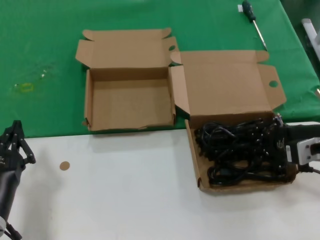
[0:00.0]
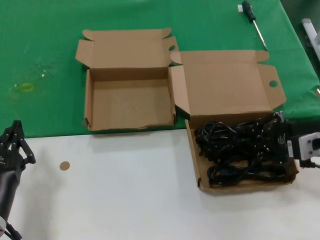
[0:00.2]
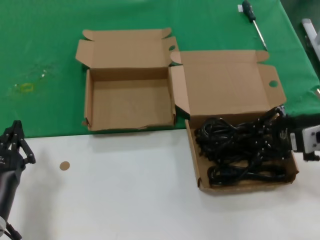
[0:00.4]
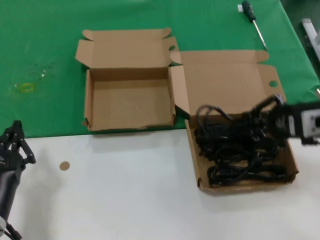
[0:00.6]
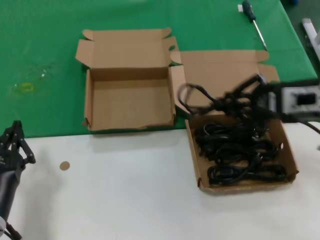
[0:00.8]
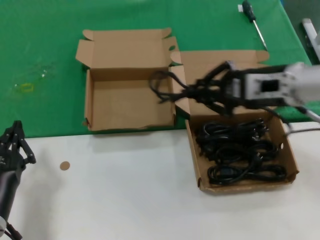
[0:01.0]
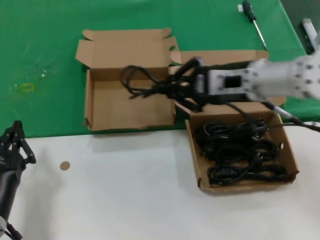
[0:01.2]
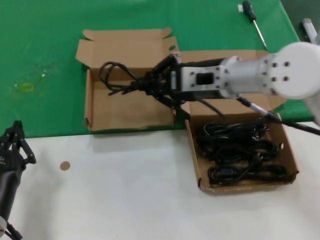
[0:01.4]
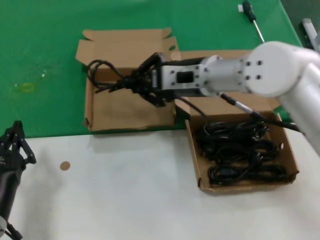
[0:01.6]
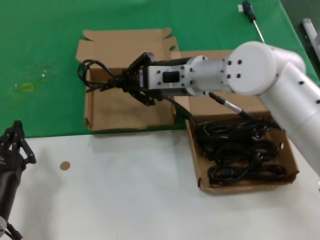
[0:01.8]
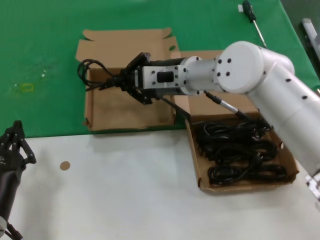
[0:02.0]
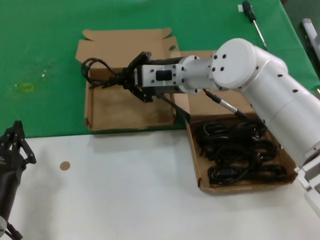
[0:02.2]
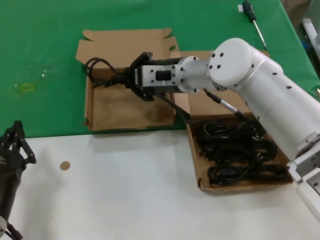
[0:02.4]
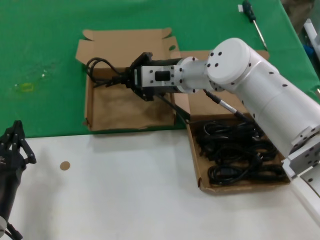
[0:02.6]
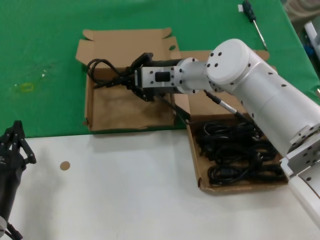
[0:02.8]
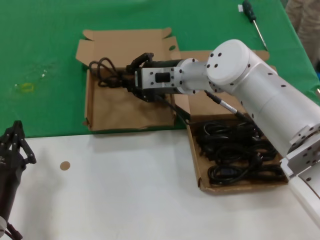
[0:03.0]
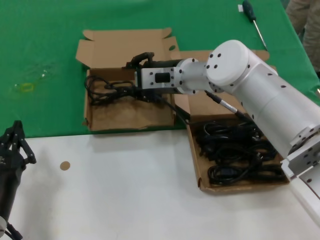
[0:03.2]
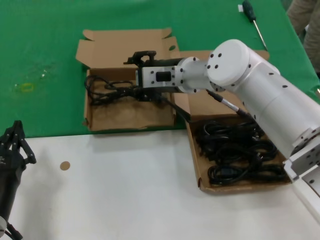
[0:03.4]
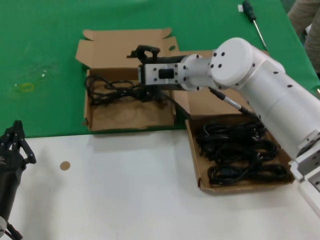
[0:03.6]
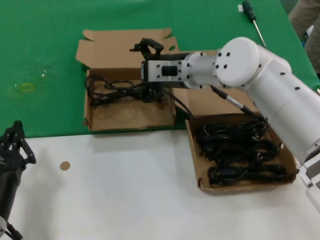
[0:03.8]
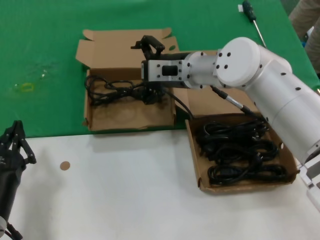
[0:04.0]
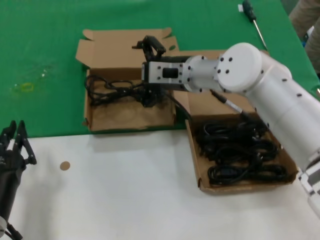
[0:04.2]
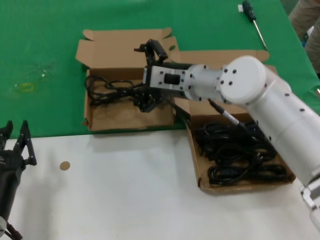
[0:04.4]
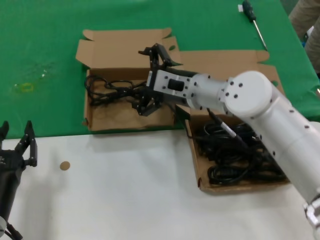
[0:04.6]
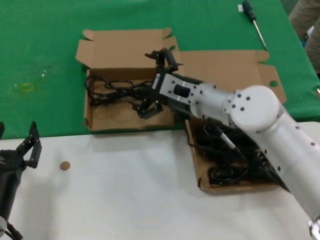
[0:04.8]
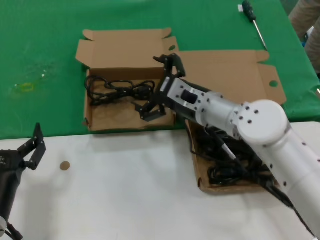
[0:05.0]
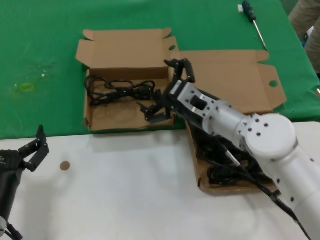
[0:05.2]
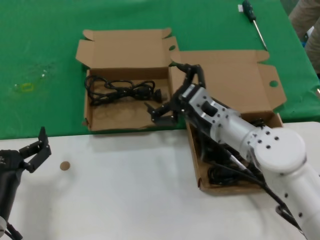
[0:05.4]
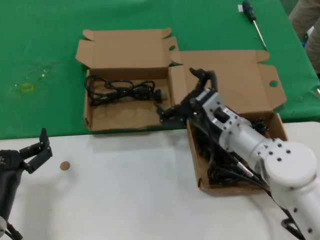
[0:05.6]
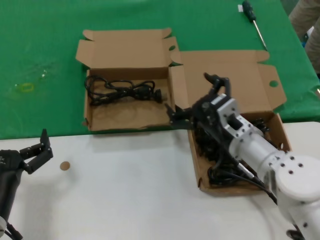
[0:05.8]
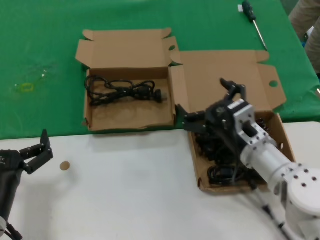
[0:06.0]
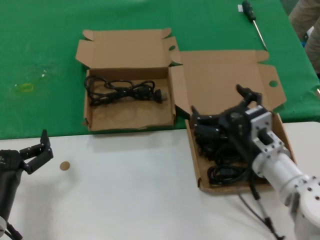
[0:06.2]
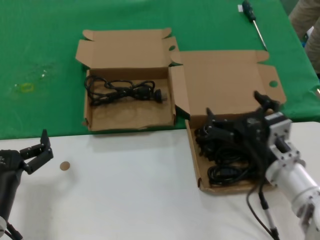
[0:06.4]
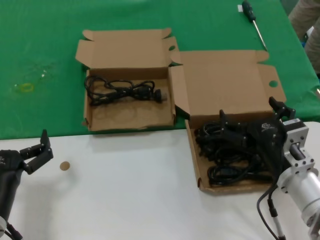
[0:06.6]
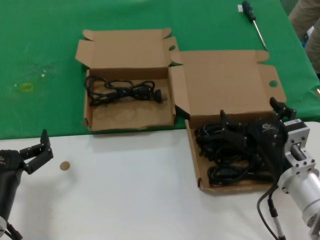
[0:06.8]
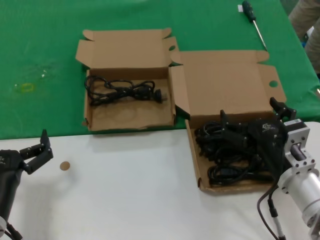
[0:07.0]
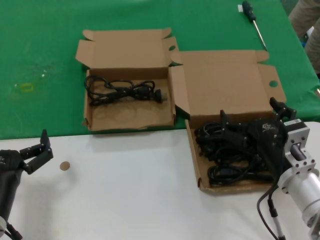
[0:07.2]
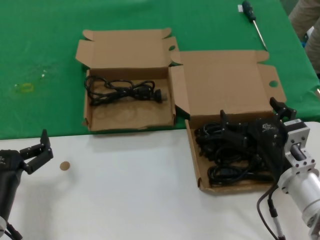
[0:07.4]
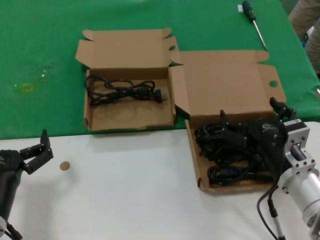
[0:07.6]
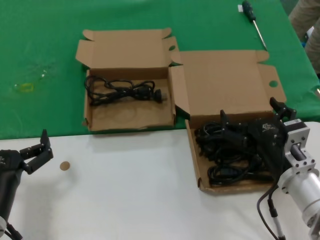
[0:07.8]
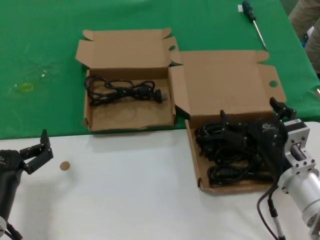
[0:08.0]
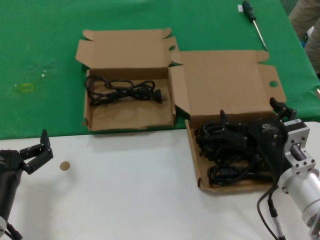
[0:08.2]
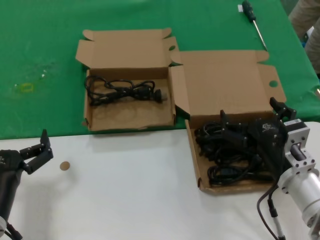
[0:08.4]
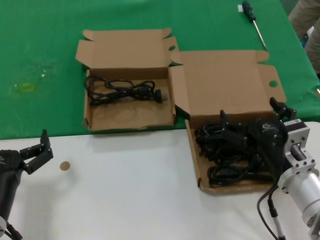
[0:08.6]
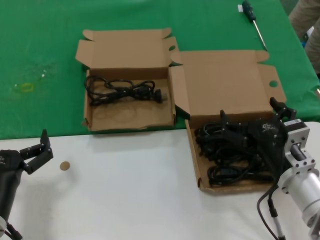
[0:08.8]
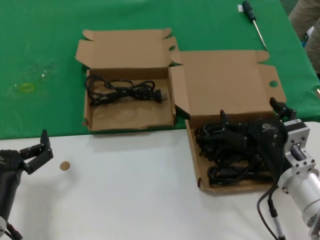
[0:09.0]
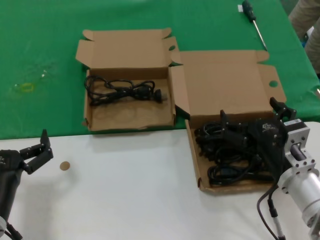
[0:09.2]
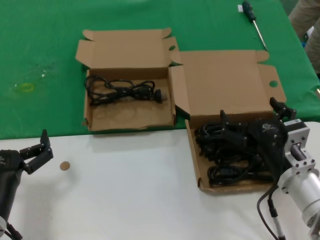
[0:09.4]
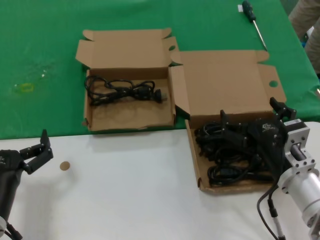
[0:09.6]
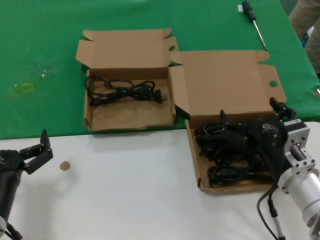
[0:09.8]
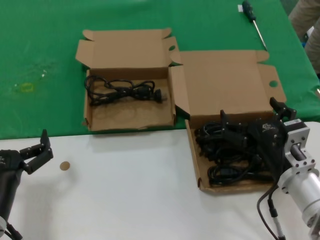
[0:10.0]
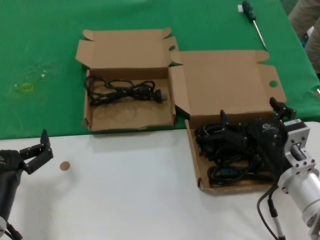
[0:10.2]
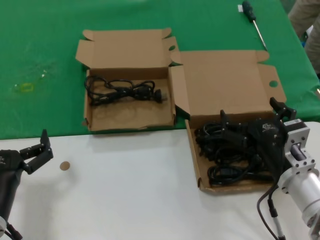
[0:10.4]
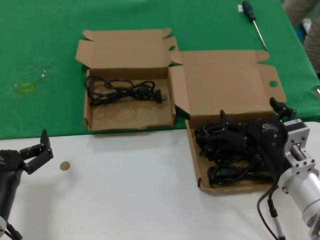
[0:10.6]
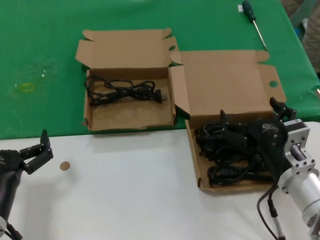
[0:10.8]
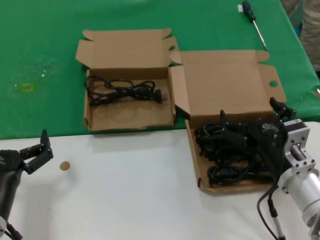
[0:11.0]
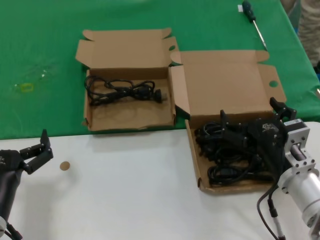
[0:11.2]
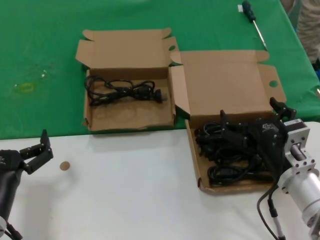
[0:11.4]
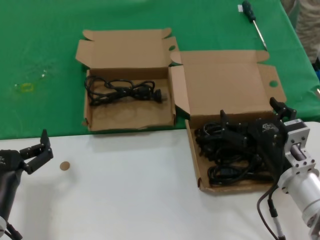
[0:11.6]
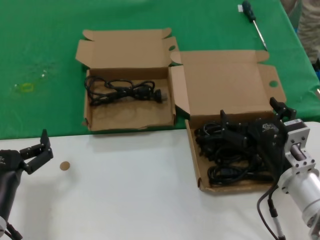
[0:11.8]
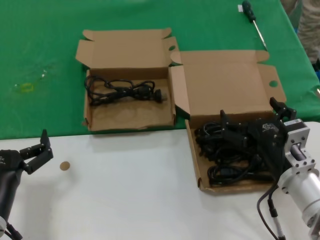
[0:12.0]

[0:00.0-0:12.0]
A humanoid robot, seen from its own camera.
Task of the whole recording: take the parts from the box containing them and put them into an empty box.
Step, 0:00.2 to 0:03.8: Place the data cable in the another box.
0:00.0 to 0:01.6: The right hand goes about 25 cm to the left, forward and upward.
0:01.6 to 0:03.0: The right hand shifts some 5 cm forward.
0:03.0 to 0:04.4: The hands make only small movements.
0:04.4 to 0:06.0: The right hand moves backward, downward and to the right, roughly 20 cm.
0:06.0 to 0:07.6: The right hand heads backward, covering some 5 cm.
0:07.6 to 0:12.0: The two hands keep their place.

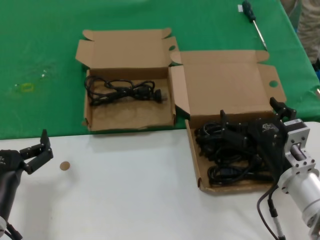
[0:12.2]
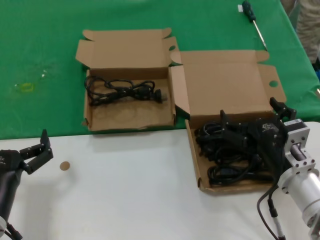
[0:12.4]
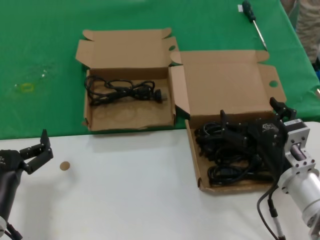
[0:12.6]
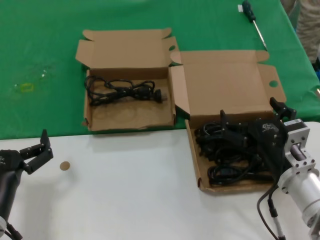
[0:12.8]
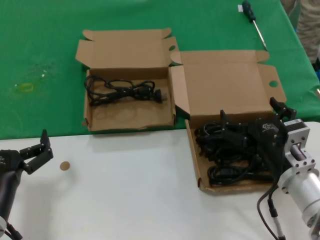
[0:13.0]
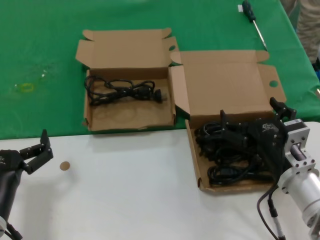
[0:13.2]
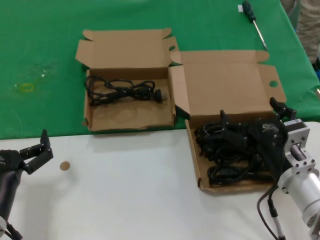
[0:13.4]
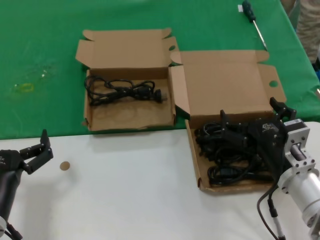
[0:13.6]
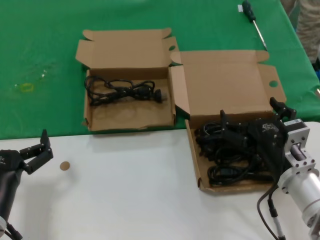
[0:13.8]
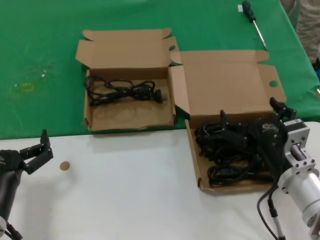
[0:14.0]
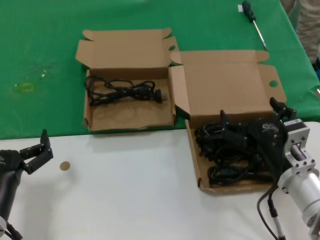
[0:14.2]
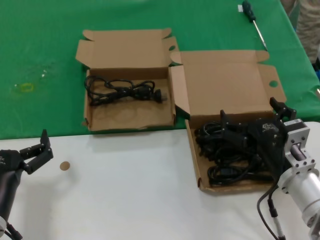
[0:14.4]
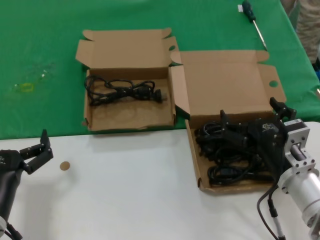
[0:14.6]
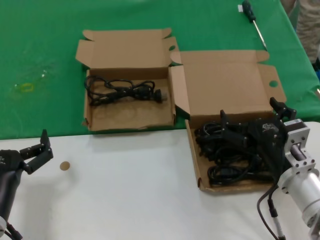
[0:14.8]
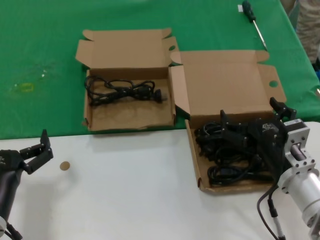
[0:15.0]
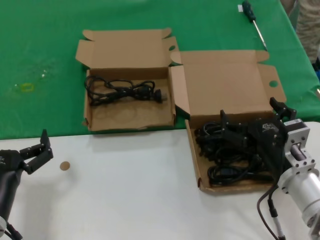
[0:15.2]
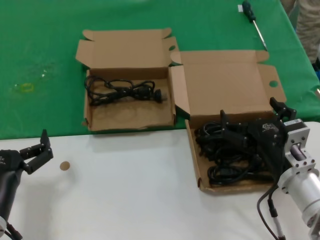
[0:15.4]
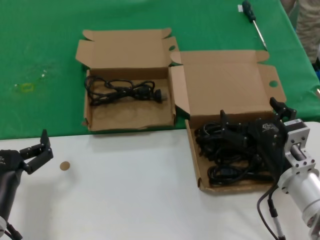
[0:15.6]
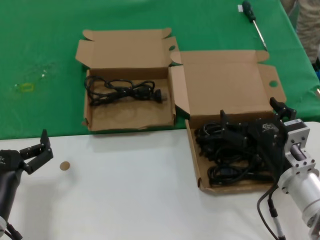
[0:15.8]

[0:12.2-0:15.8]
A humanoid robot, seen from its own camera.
Task of the whole recording: take the parts from the box containing them and put them into an empty box.
0:12.2 to 0:15.8: Both hands stay about where they are.

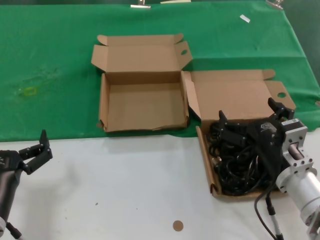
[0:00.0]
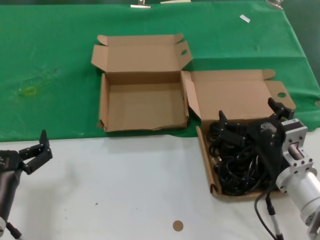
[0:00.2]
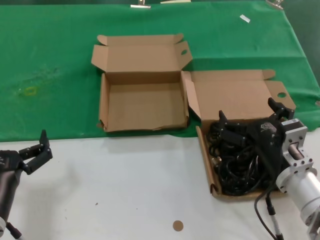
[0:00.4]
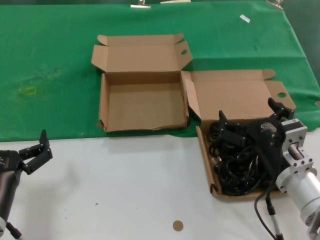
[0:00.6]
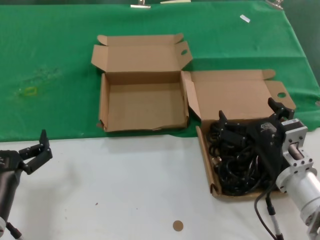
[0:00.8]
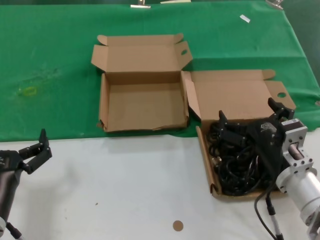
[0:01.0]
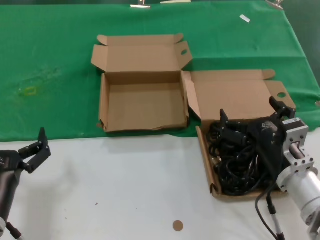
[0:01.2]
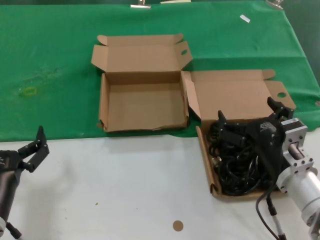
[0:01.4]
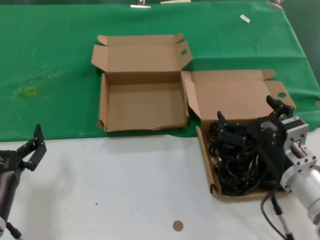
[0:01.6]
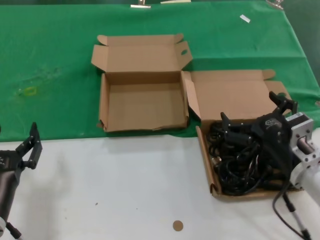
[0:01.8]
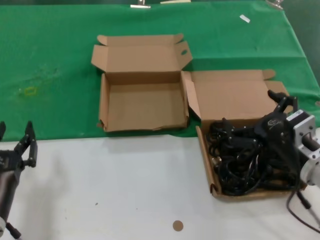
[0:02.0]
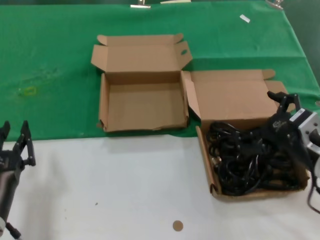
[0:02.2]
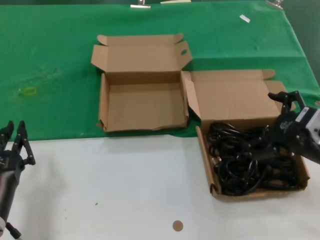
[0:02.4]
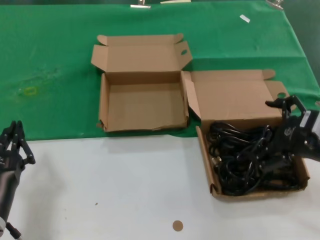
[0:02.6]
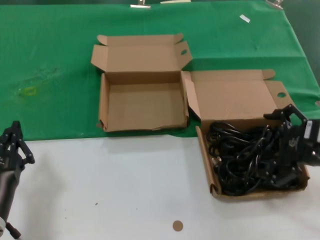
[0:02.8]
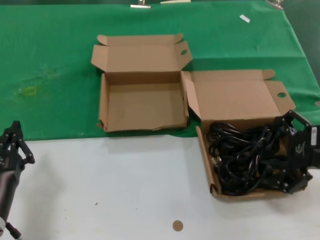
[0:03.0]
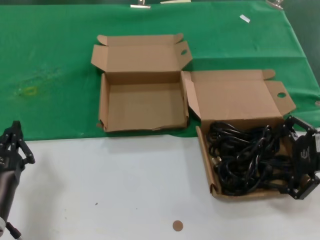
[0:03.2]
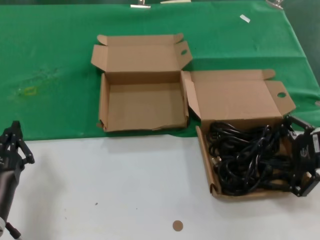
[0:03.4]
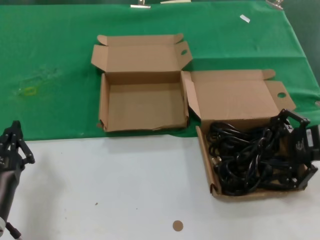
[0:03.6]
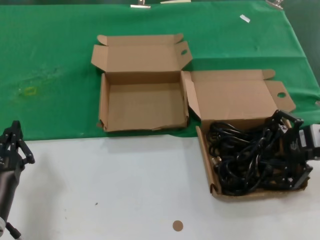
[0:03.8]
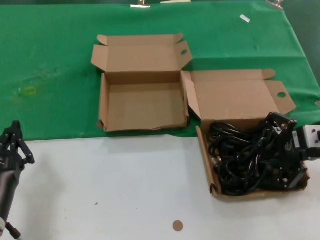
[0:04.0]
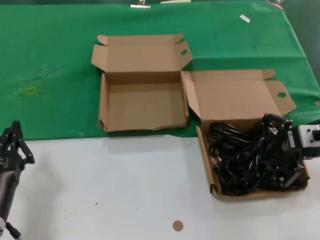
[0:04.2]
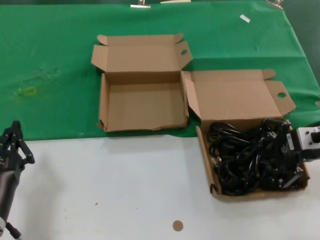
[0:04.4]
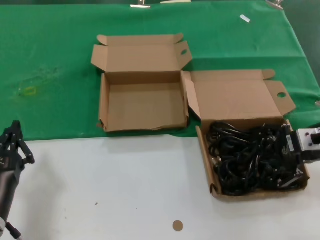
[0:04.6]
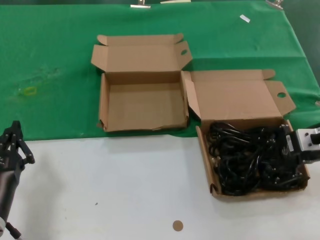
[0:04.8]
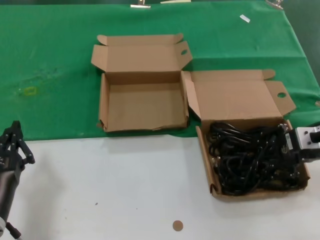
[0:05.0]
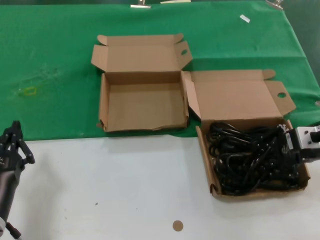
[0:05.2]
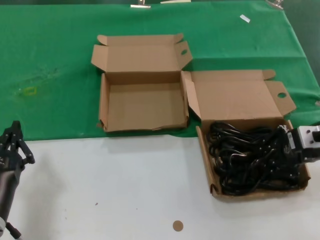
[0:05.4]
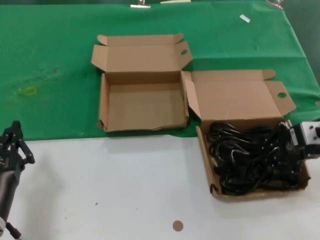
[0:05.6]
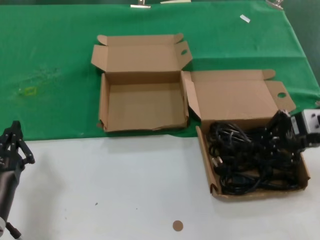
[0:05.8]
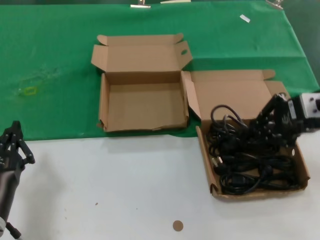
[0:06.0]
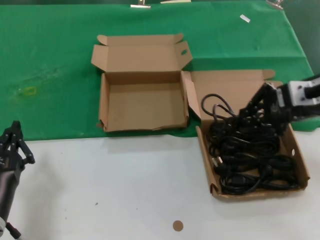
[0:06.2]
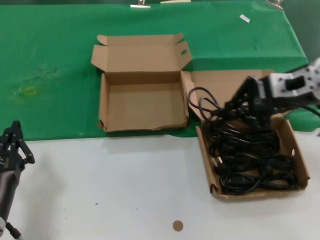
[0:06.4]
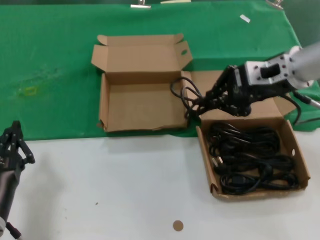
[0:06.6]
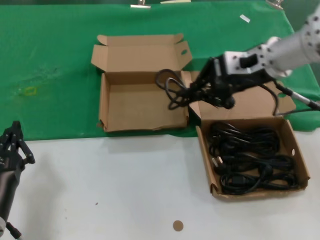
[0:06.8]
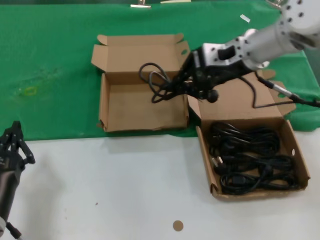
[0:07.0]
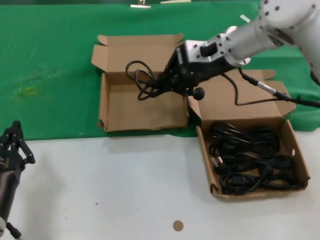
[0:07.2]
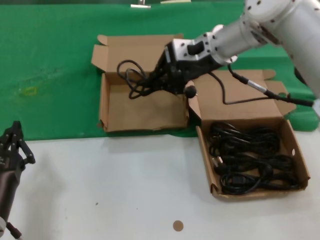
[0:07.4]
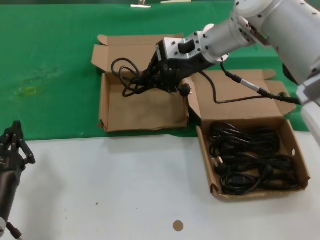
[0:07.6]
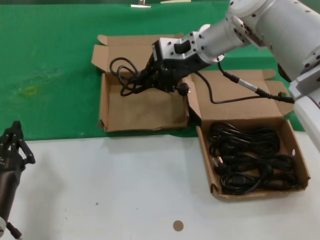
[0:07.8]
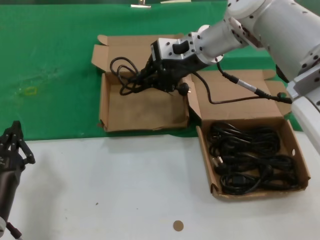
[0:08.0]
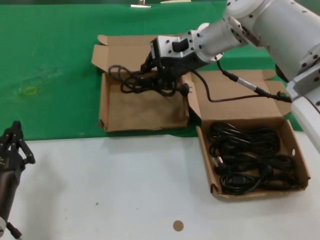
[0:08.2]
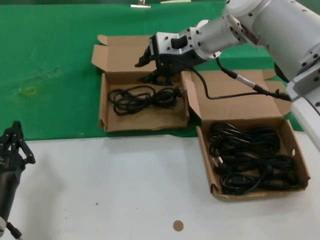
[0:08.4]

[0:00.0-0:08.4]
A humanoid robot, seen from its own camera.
Task of the whole recording: take the parts from the box containing them and put them into an empty box.
Step, 0:00.0 to 0:05.4: Grasp the data cable.
0:00.0 to 0:01.4: Both hands stay about where they are.
0:01.4 to 0:02.8: The right hand is displaced to the right and upward by about 15 cm.
0:02.8 to 0:04.2: The right hand goes about 10 cm forward.
0:04.2 to 0:05.6: The hands move only a little.
0:05.6 to 0:07.0: The right hand shifts some 20 cm to the left, forward and upward.
0:07.0 to 0:08.4: The right hand travels to the left and forward by some 10 cm.
